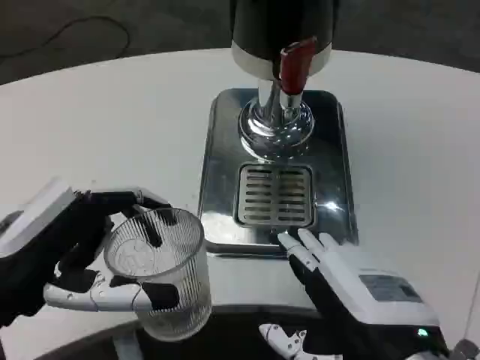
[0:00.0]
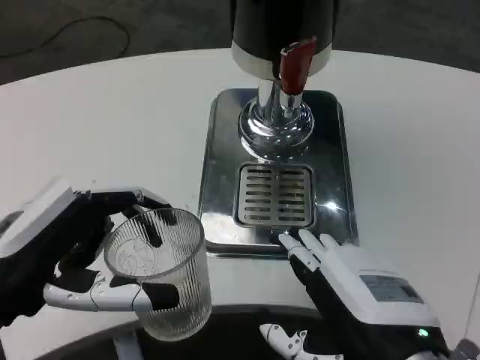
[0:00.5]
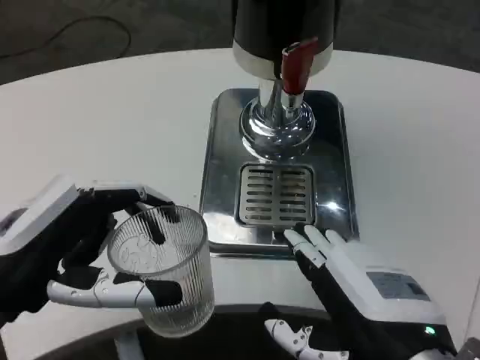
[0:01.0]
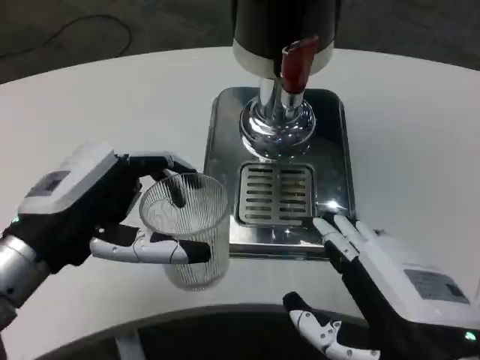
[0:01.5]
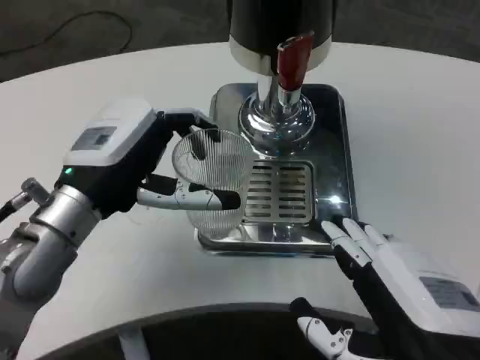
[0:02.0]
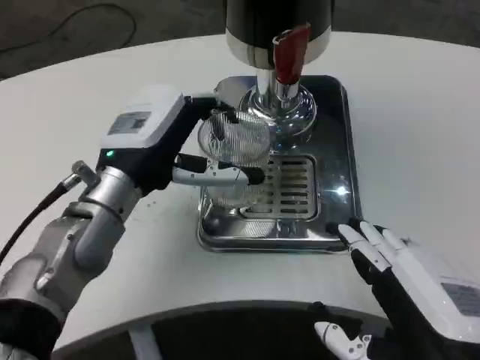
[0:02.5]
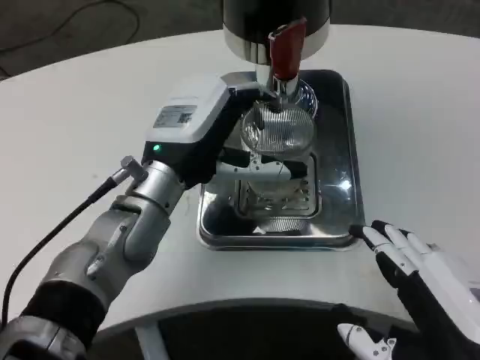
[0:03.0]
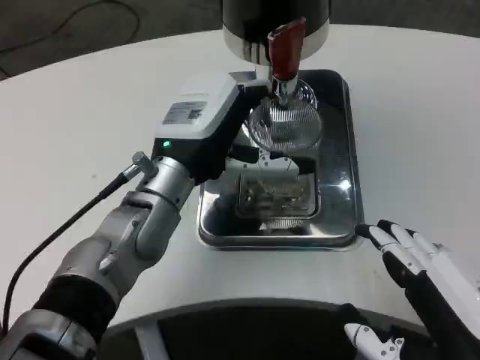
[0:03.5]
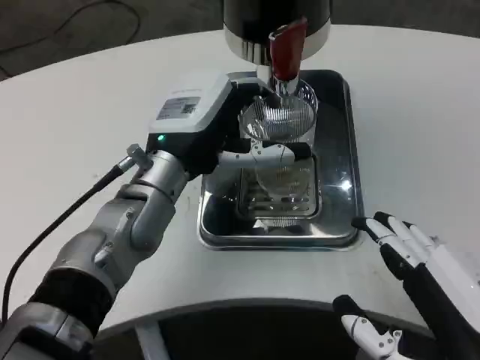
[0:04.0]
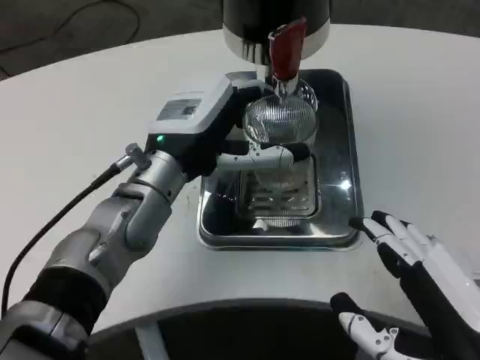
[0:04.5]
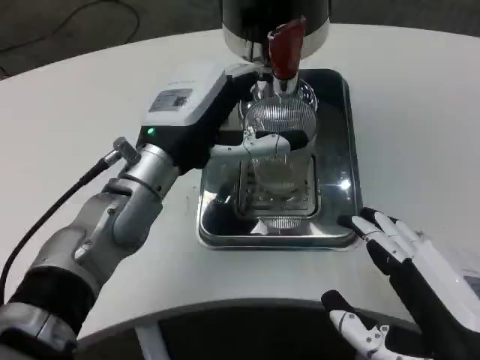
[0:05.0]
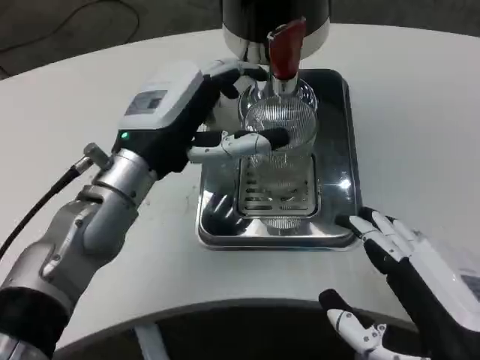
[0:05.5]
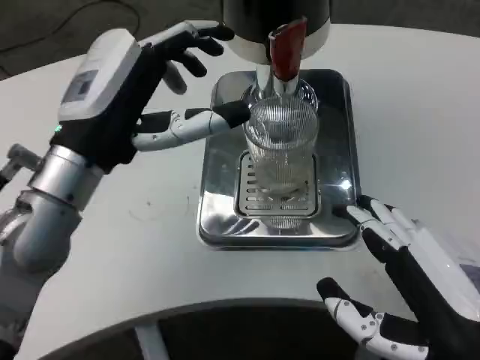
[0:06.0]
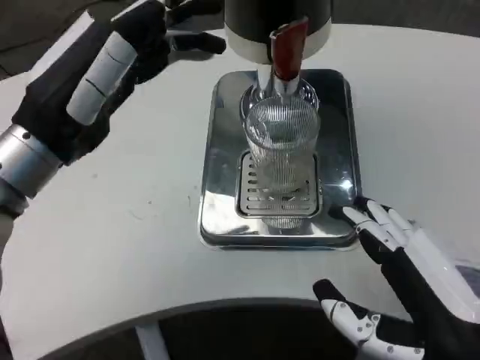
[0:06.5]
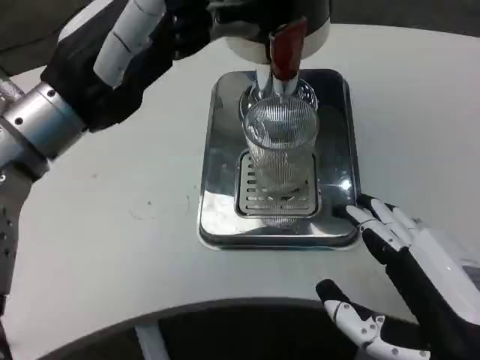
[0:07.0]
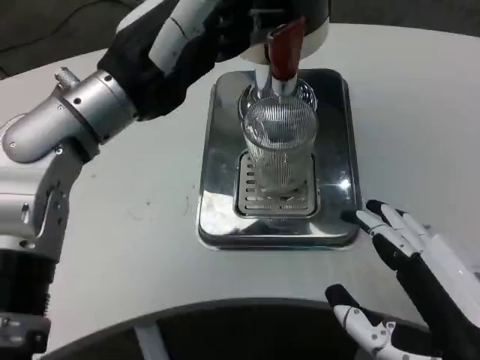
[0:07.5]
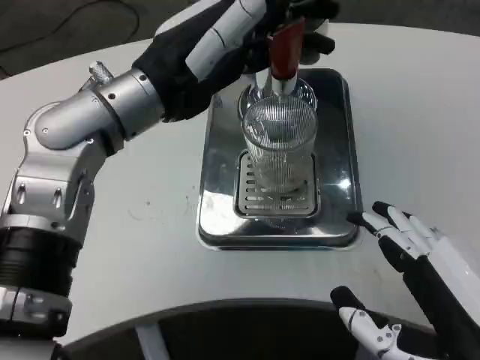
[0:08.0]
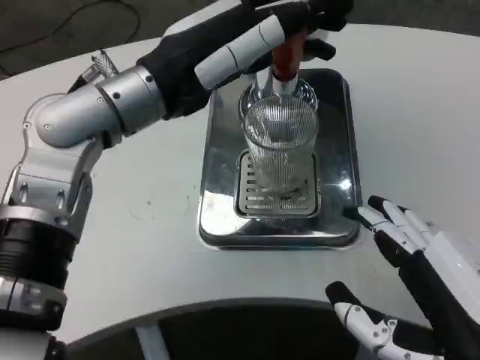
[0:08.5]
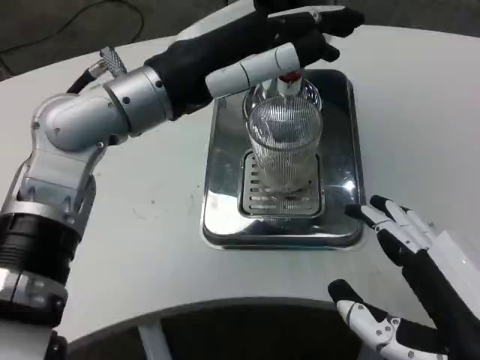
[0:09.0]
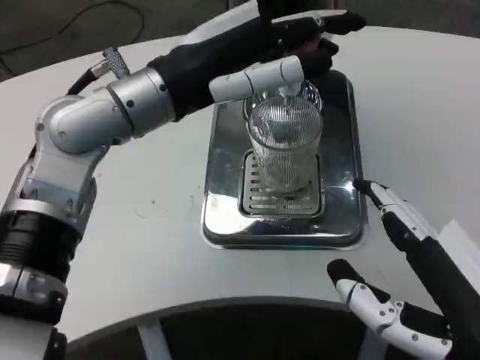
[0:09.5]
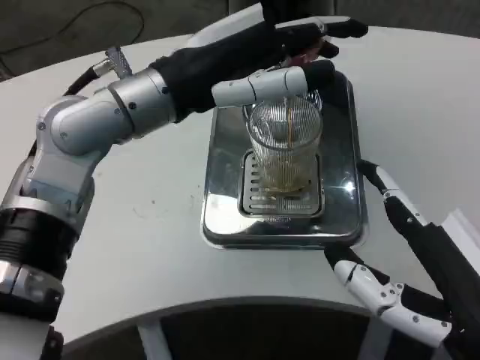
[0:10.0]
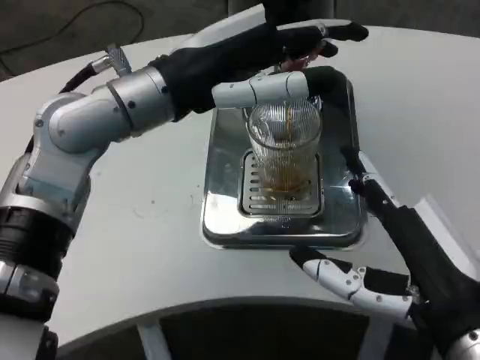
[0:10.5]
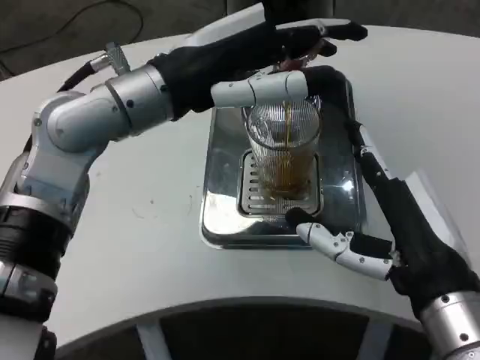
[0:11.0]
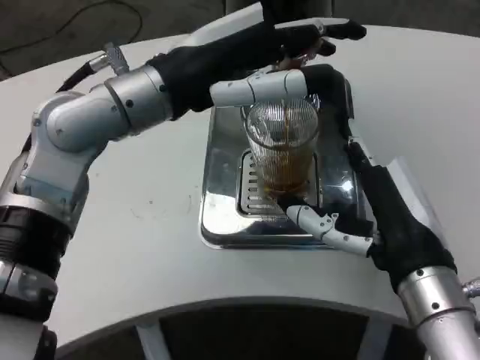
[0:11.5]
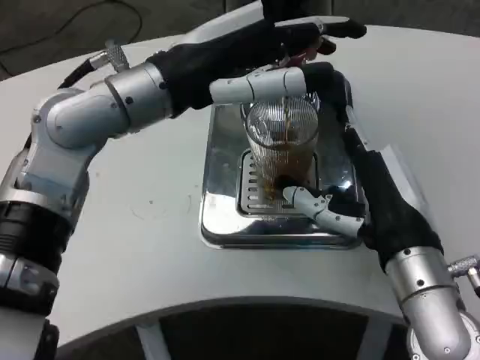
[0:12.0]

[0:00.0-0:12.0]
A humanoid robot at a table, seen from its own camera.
Task of the whole recording: Grasp the cup under the faucet to collect the drink, then remove the cup.
0:00.0 to 0:02.0: The left hand shifts some 10 cm forward and to the right.
0:02.0 to 0:04.0: The left hand is displaced to the right and forward by roughly 10 cm.
0:04.0 to 0:06.0: The left hand shifts about 10 cm to the left and backward.
0:06.0 to 0:08.0: The left hand heads upward, covering roughly 5 cm.
0:10.0 to 0:12.0: The right hand shifts about 10 cm forward.

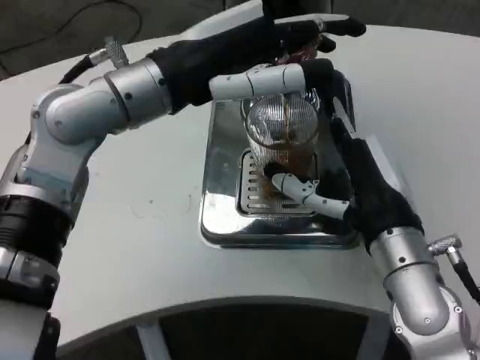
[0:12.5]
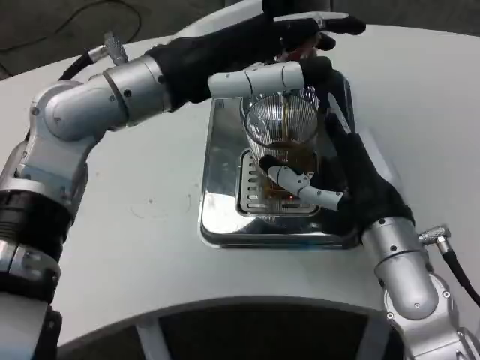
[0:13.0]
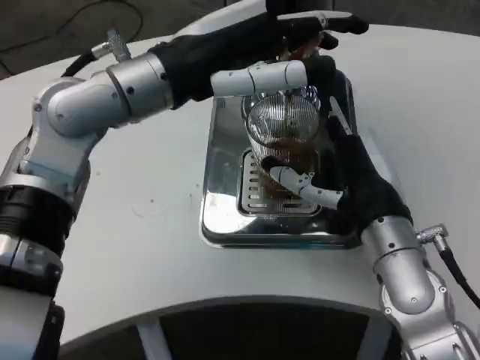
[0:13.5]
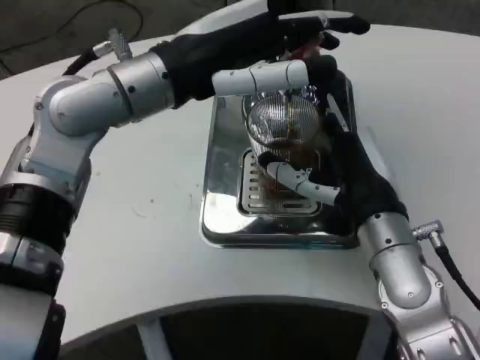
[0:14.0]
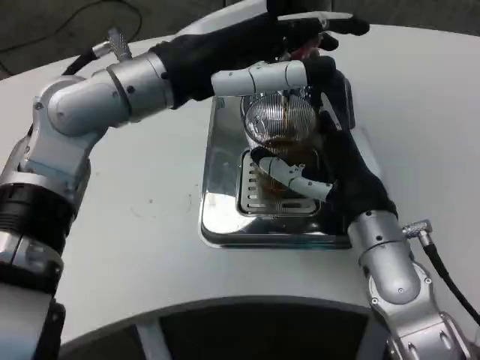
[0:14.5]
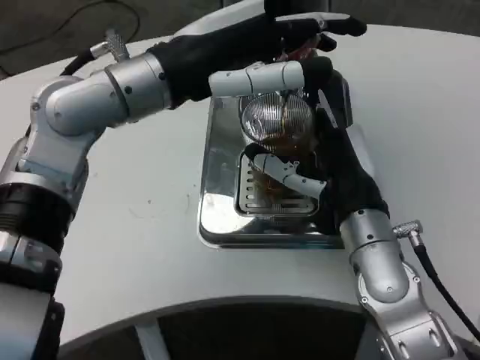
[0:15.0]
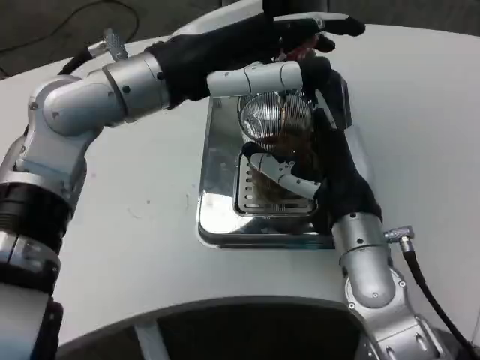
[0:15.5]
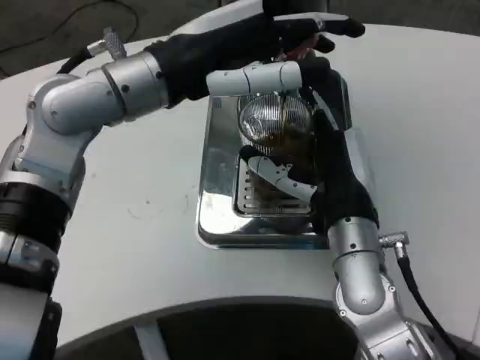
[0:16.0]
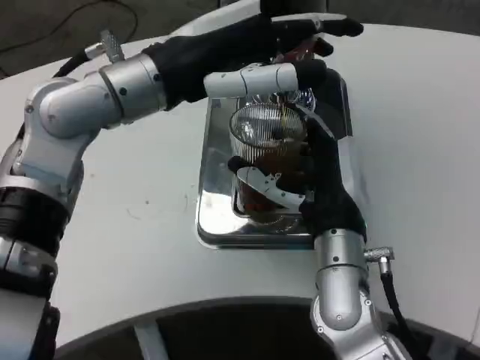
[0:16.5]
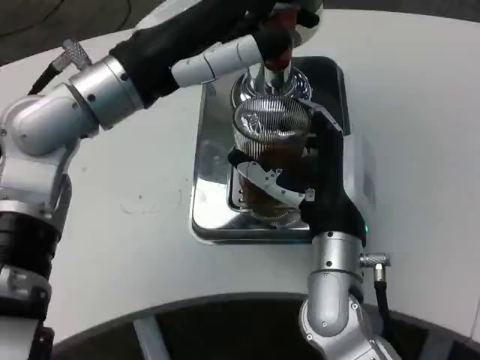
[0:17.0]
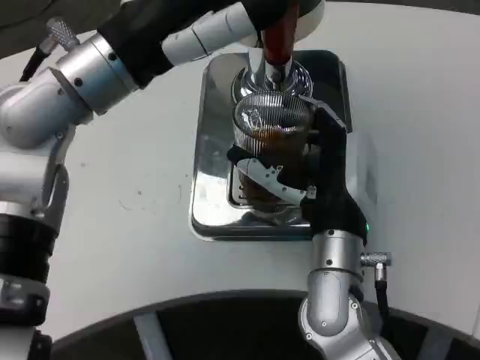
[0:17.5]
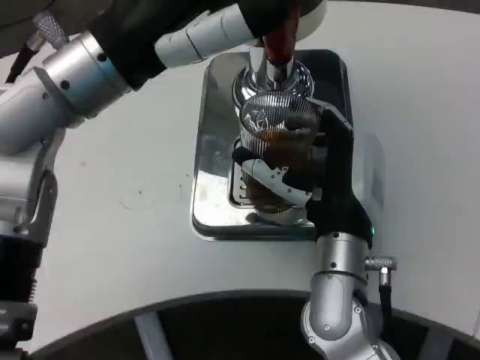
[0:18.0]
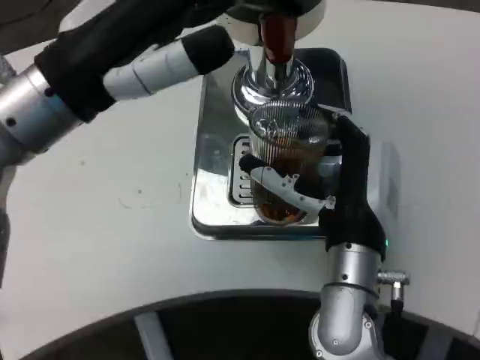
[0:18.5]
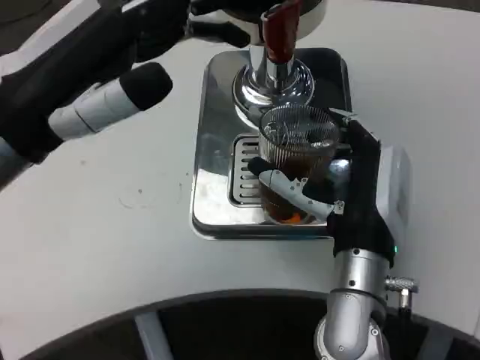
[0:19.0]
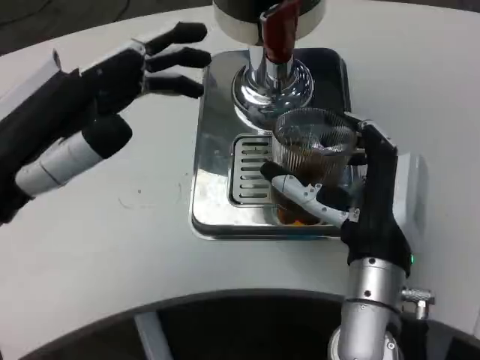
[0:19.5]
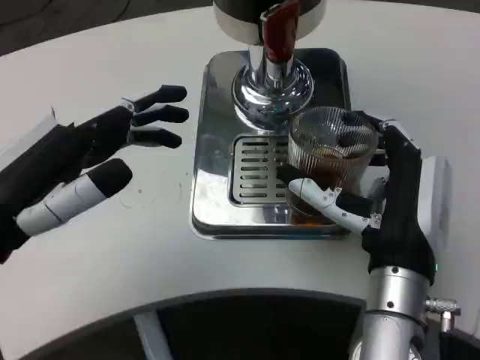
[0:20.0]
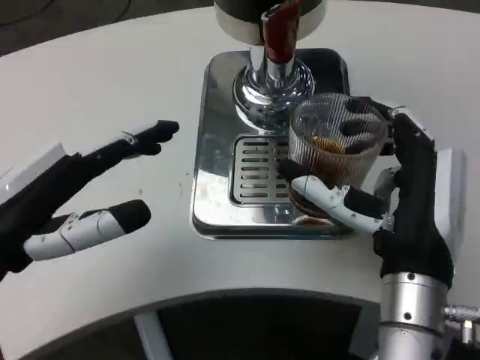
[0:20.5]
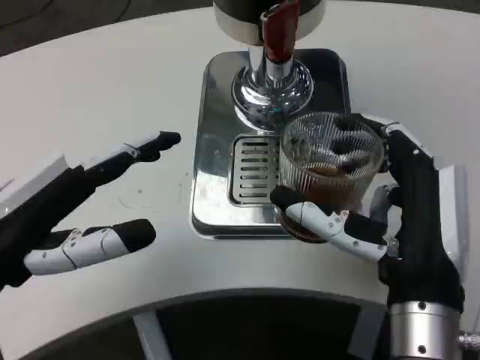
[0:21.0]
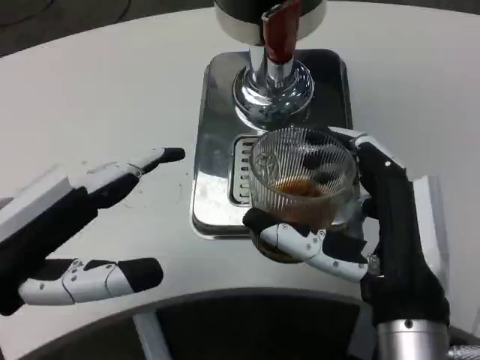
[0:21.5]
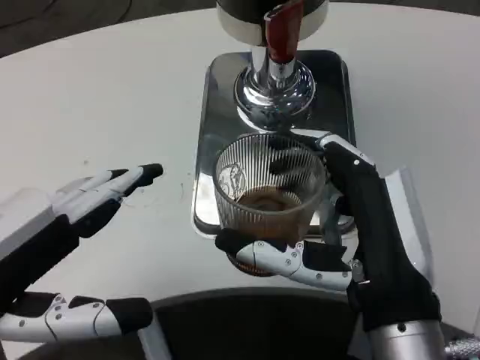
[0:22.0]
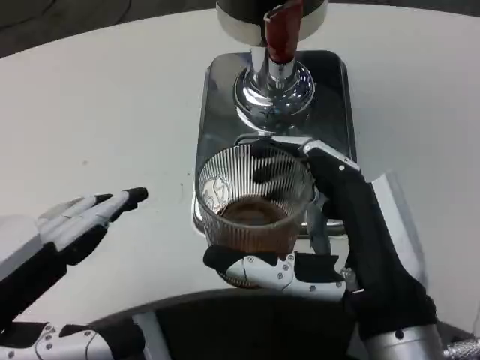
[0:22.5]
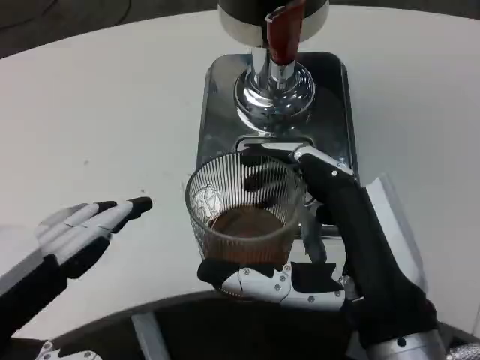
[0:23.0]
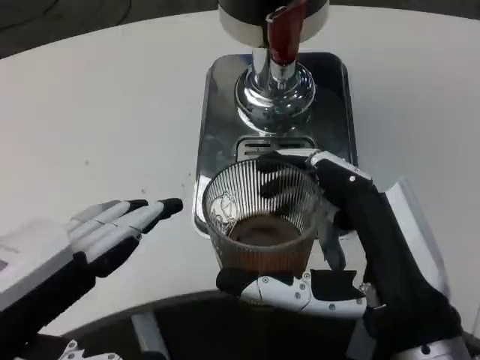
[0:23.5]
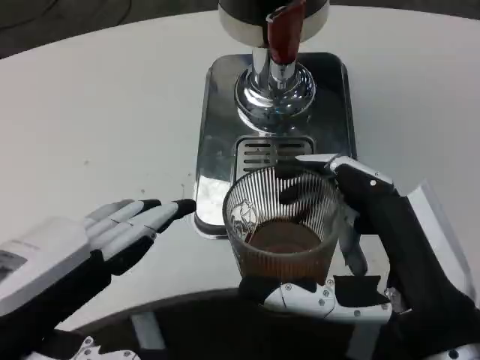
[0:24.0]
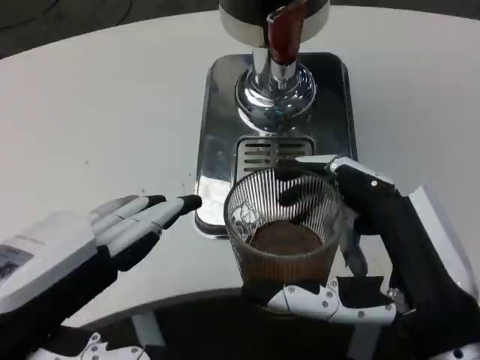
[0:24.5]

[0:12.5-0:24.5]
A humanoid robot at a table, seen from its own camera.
Task of the whole recording: Grasp the cup under the faucet to collect the drink, then remove the cup.
0:14.5 to 0:16.5: The right hand ends up approximately 5 cm from where it was.
0:16.5 to 0:18.5: The left hand shifts some 5 cm backward.
0:18.5 to 0:20.5: The left hand moves downward, backward and to the left, about 15 cm. Meanwhile the right hand heads backward, covering roughly 5 cm.
0:20.5 to 0:22.5: The right hand heads backward, covering about 5 cm, while the left hand shifts approximately 10 cm backward.

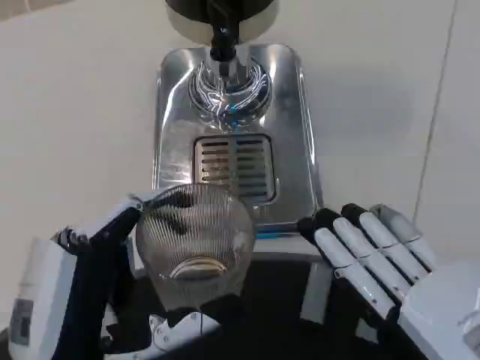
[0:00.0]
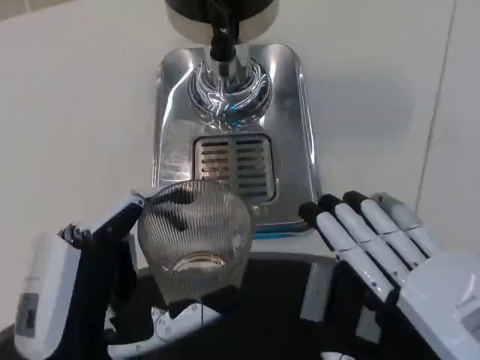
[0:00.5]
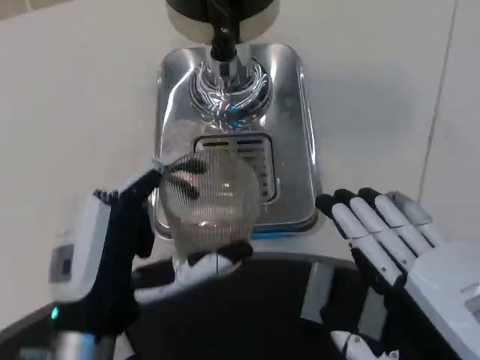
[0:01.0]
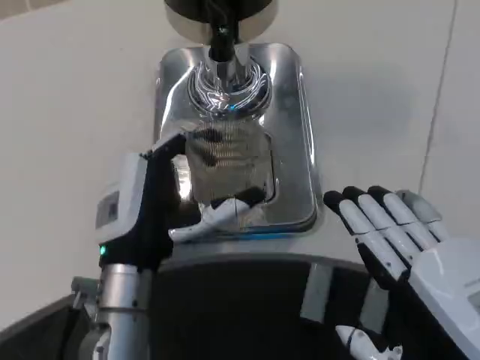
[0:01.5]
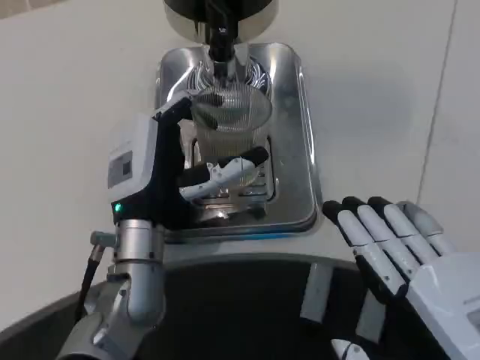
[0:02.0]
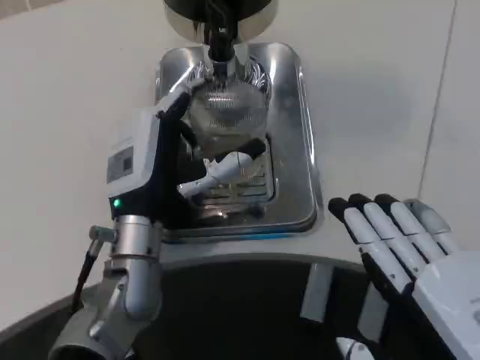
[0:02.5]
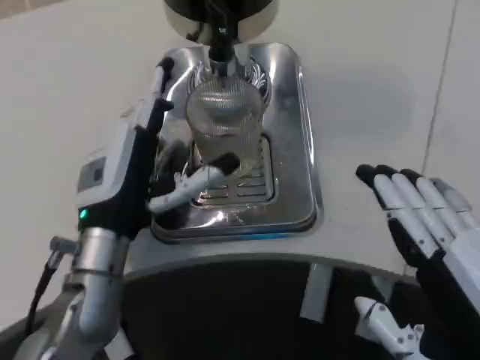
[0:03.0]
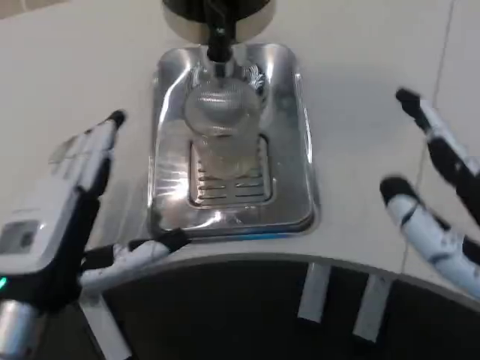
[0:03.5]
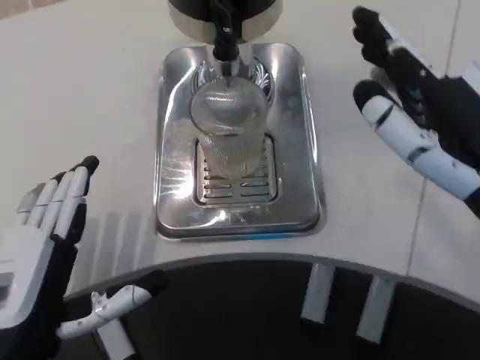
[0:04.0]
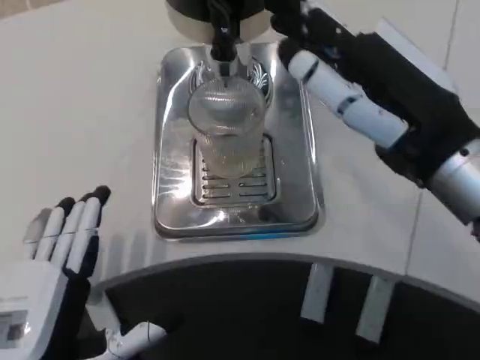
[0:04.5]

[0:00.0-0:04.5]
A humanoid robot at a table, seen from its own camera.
Task of the whole recording: Grasp the cup under the faucet to collect the drink, then remove the cup.
0:00.0 to 0:02.0: The left hand shifts about 20 cm forward.
0:02.0 to 0:04.5: The right hand heads forward and upward, covering roughly 20 cm. The left hand moves backward and to the left, about 20 cm.
